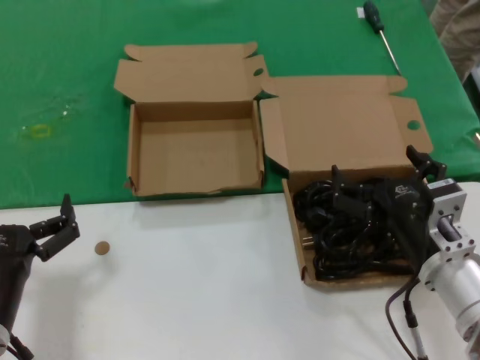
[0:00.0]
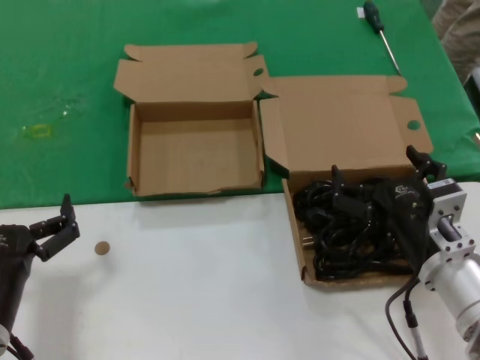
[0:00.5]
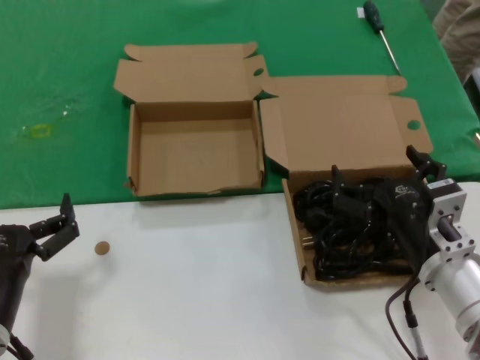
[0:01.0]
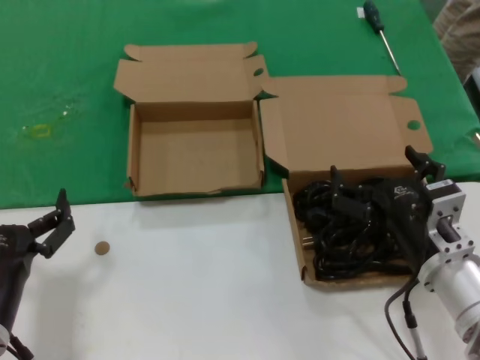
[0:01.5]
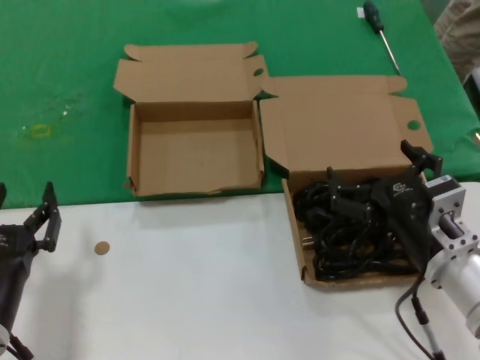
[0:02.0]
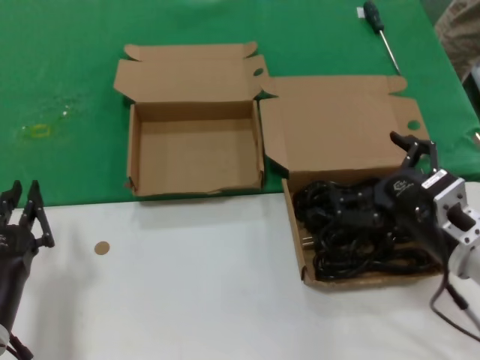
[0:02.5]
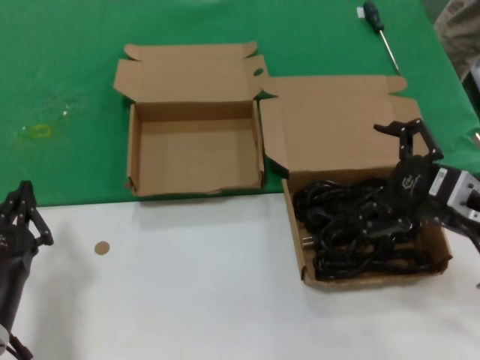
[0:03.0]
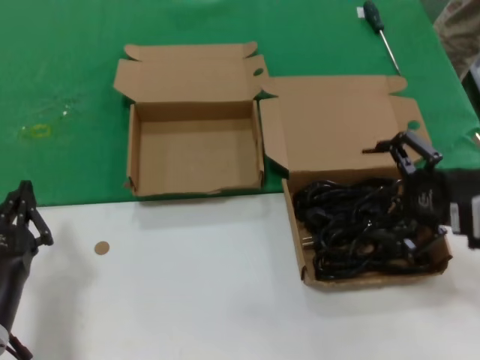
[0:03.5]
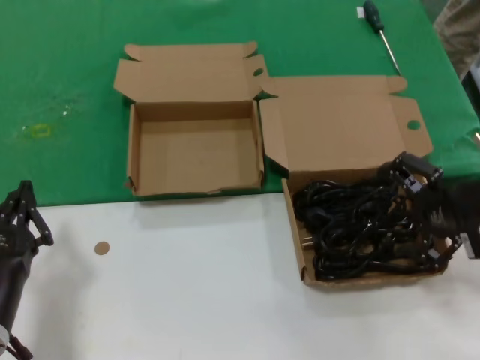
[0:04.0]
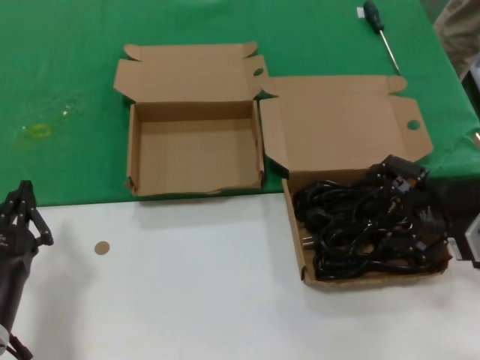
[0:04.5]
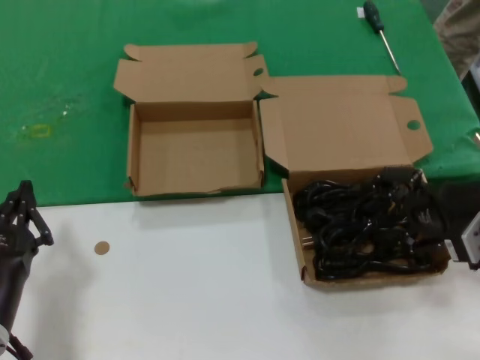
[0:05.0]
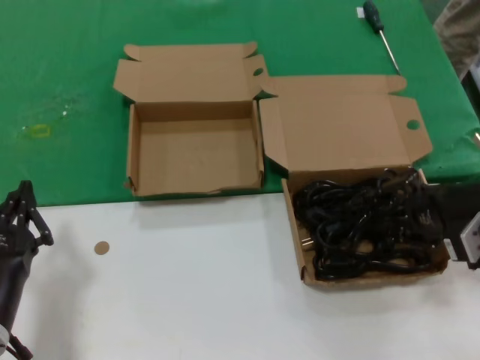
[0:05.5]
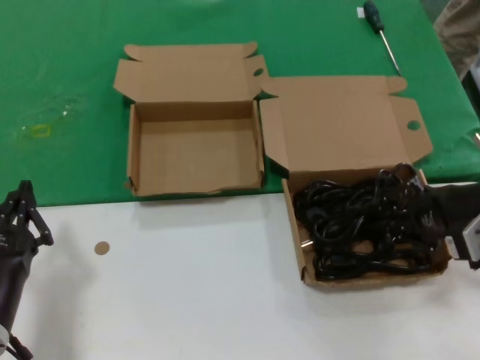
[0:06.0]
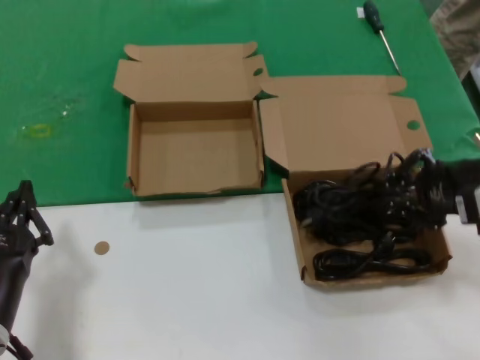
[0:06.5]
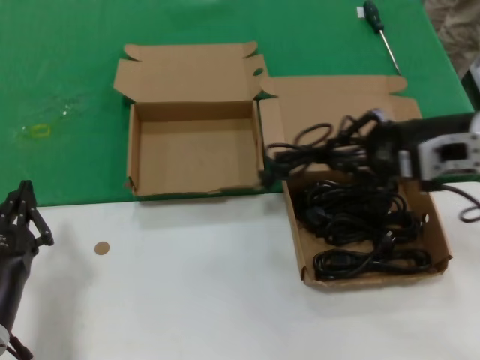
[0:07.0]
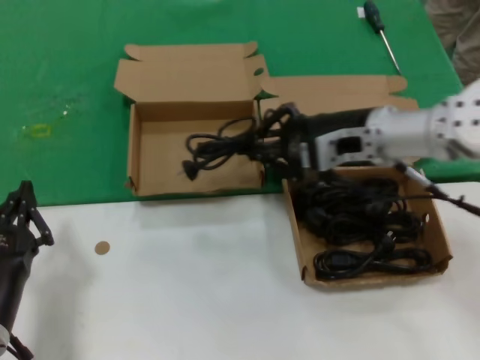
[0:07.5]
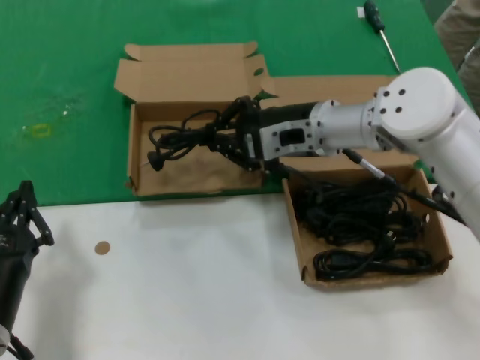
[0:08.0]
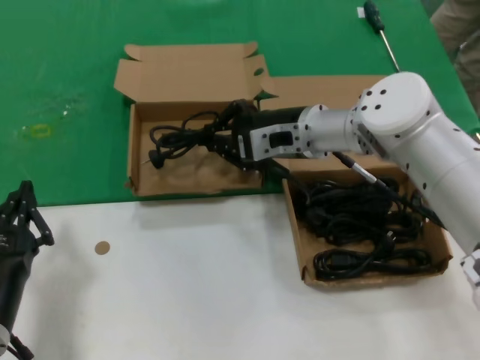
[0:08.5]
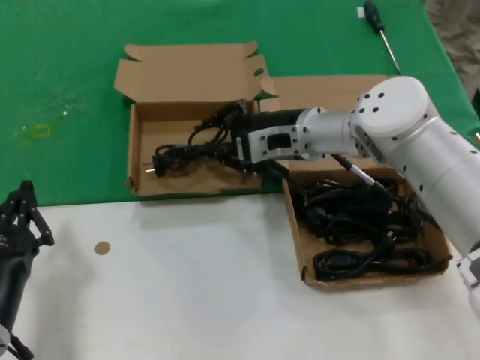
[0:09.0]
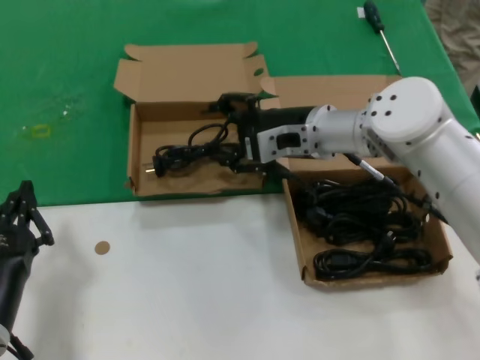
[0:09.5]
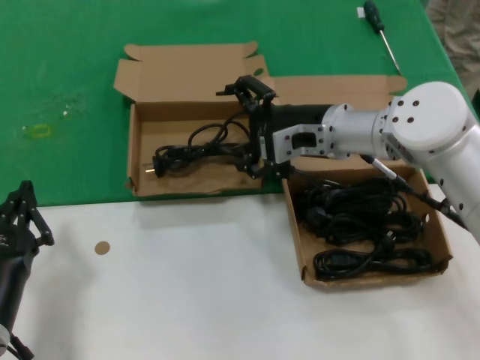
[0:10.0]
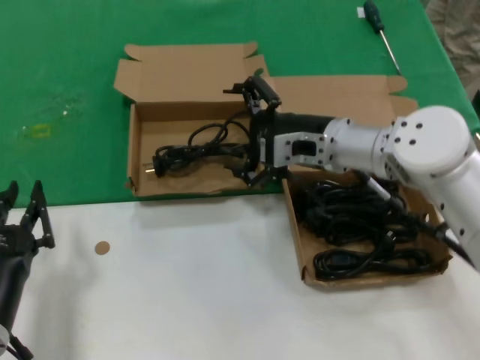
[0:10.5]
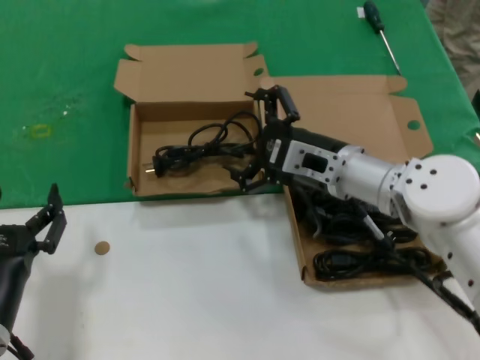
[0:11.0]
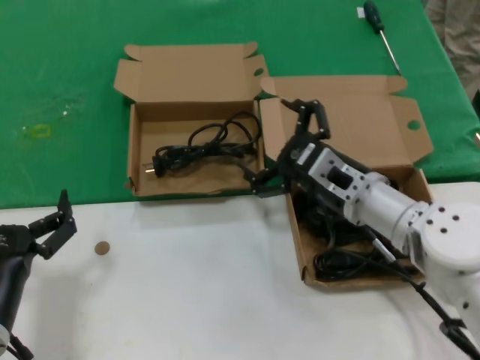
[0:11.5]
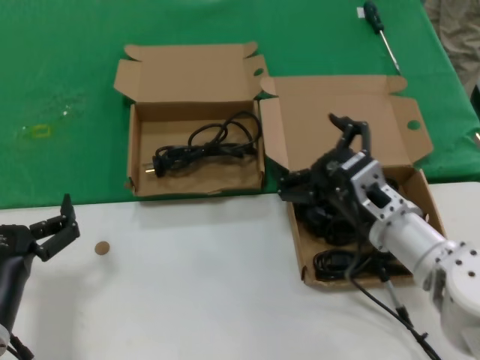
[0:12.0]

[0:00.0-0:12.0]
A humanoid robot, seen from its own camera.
Task of the whole recording: take the parts from the box containing them and put them into an empty box.
Step, 0:00.0 to 0:05.5: Grasp the data cable.
Step, 0:06.0 to 0:09.5: Place the data cable in the another box.
0:00.0 to 0:02.0: Both hands stay put.
0:02.0 to 0:04.0: The right hand moves to the right and upward, roughly 15 cm.
0:04.0 to 0:06.0: The hands make only small movements.
0:06.0 to 0:08.0: The right hand is displaced to the left and forward by roughly 25 cm.
0:08.0 to 0:10.0: The hands make only small movements.
0:10.0 to 0:12.0: The right hand heads backward and downward, covering some 15 cm.

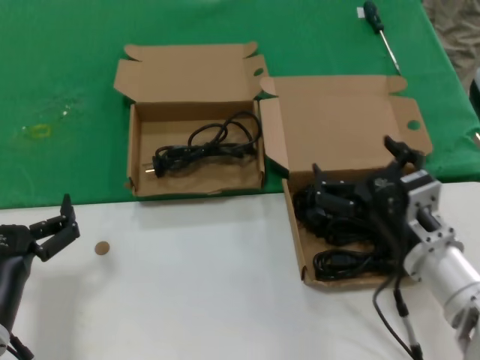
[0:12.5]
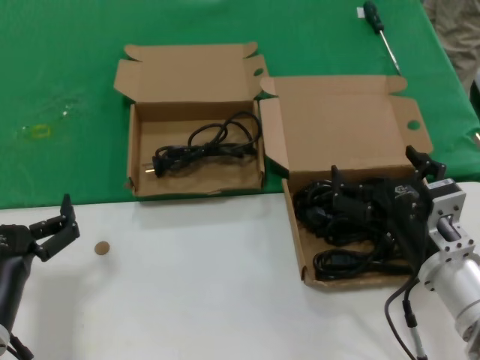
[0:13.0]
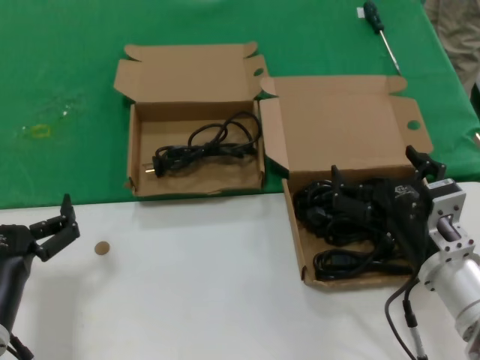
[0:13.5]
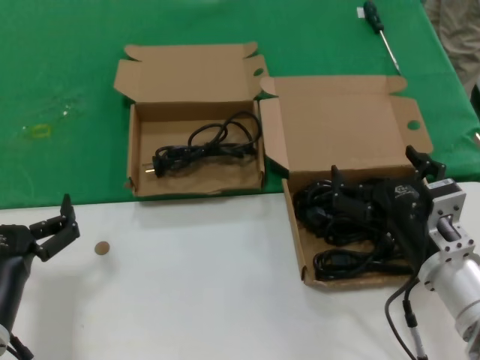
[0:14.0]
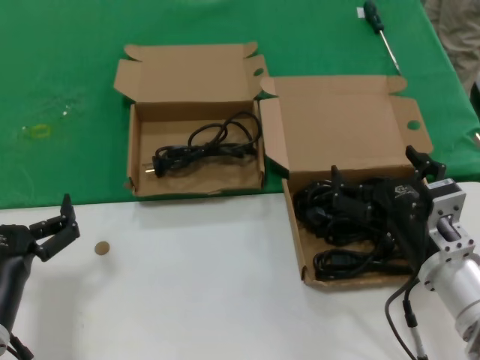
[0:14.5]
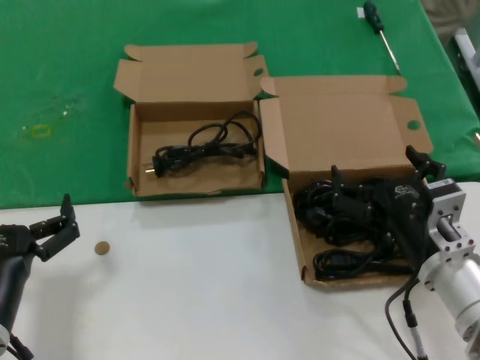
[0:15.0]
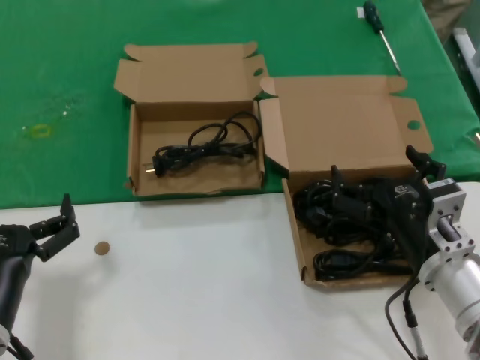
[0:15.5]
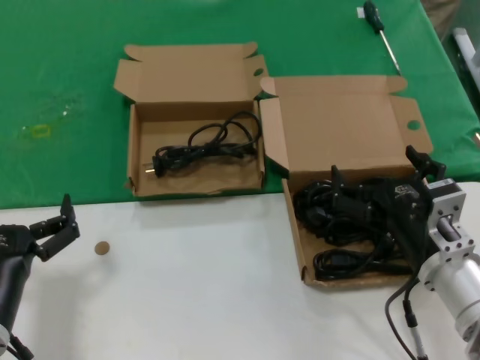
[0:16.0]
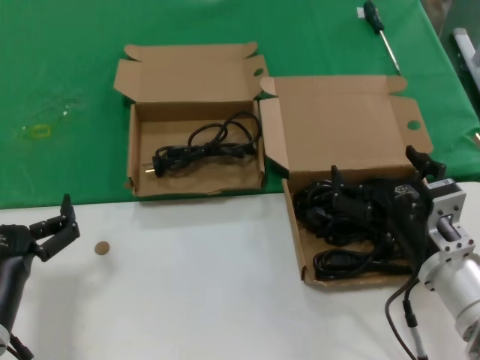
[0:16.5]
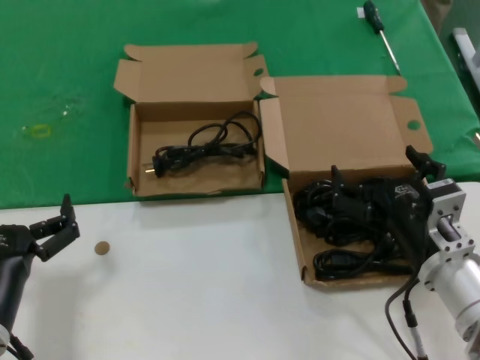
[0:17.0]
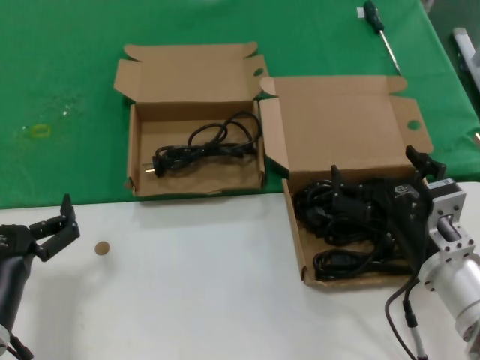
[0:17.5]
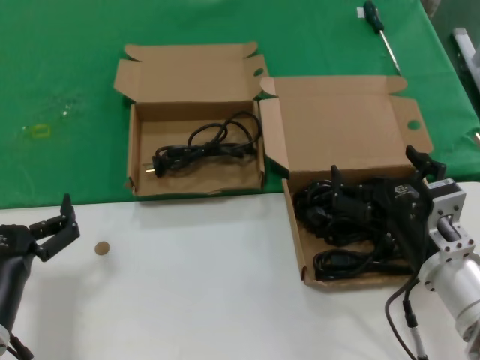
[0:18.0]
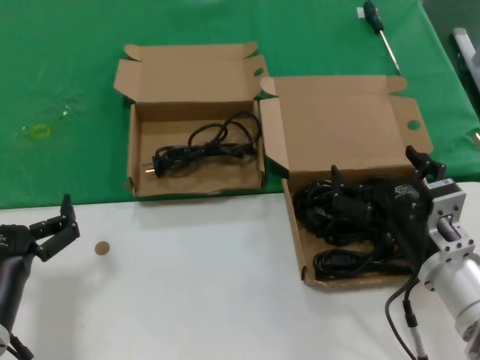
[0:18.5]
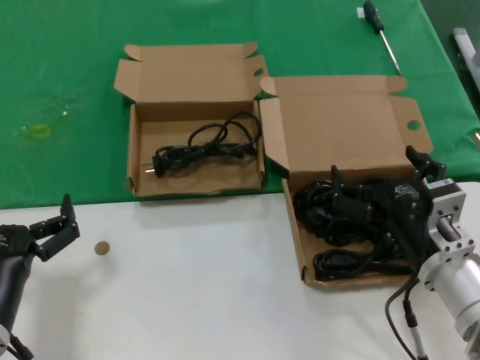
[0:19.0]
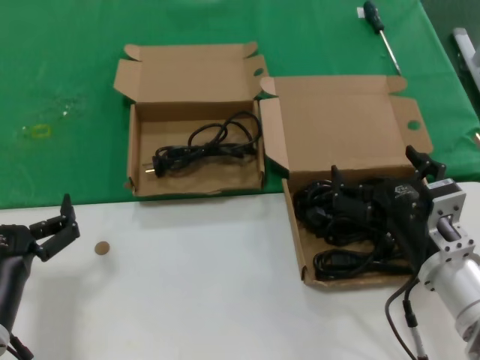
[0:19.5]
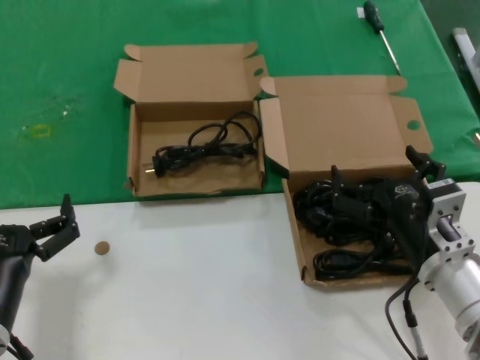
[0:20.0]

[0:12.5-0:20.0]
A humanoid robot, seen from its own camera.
Task of the whole recording: take the parts from the box containing them and put them into an empty box.
0:12.5 to 0:14.5: The hands stay close to where they were, moving slightly.
0:14.5 to 0:20.0: The two hands keep their place.

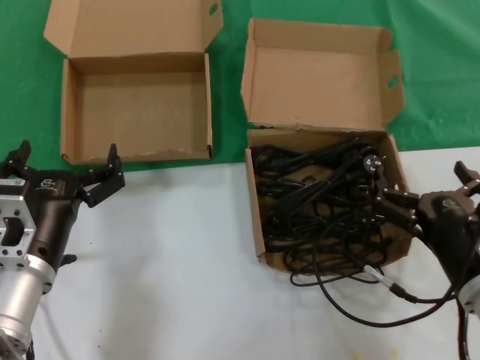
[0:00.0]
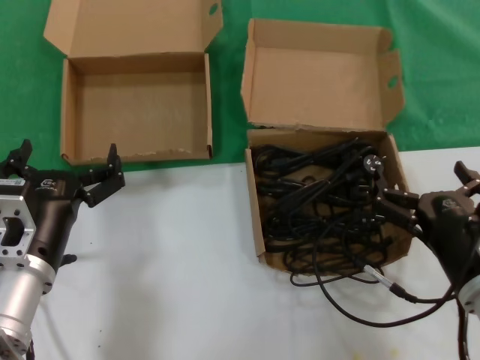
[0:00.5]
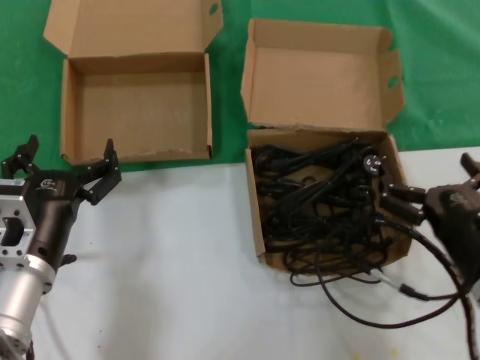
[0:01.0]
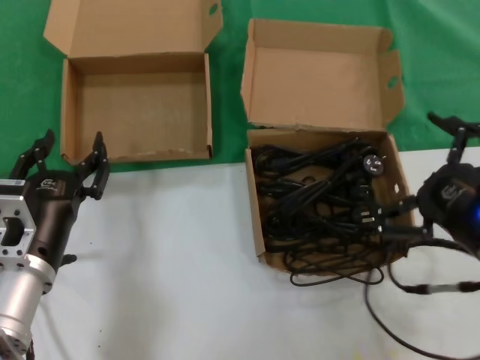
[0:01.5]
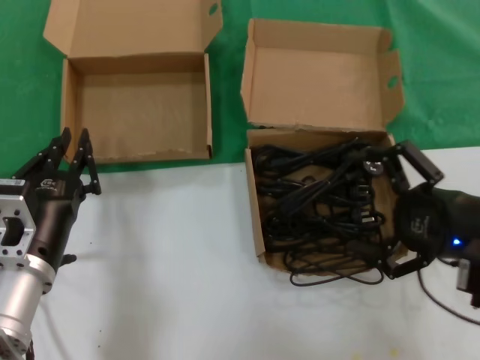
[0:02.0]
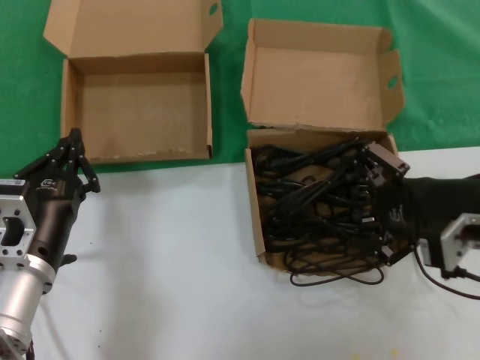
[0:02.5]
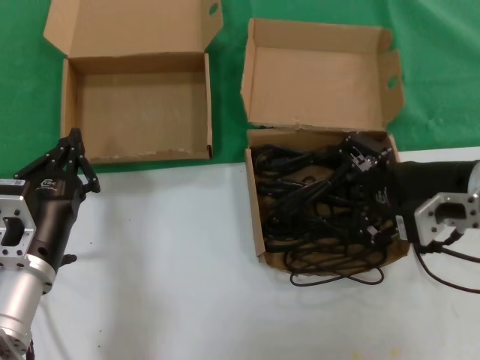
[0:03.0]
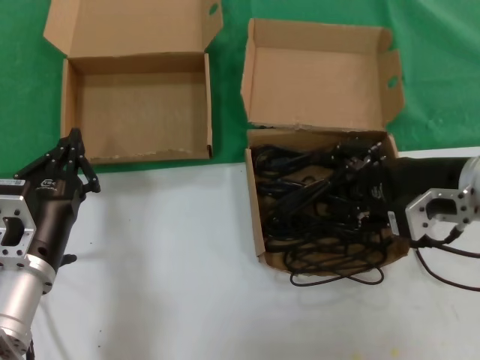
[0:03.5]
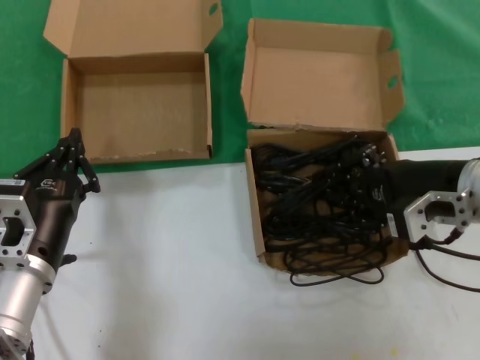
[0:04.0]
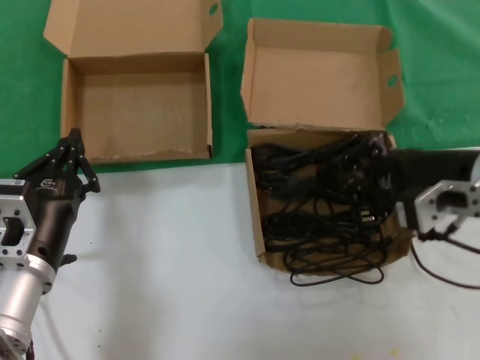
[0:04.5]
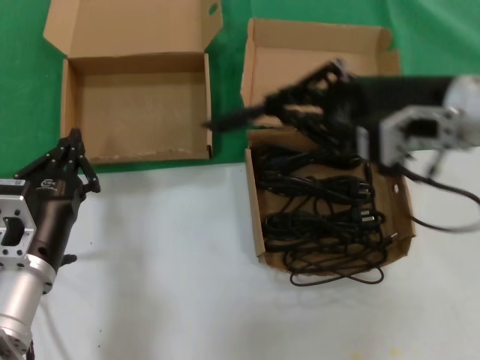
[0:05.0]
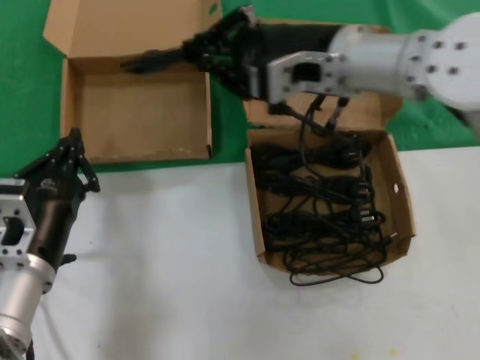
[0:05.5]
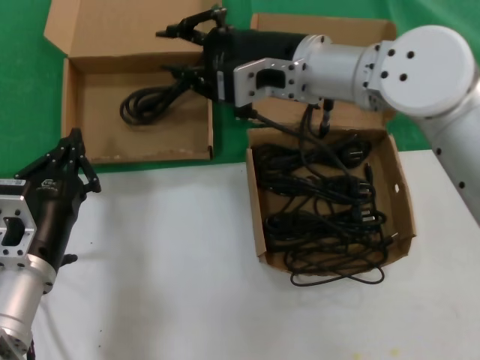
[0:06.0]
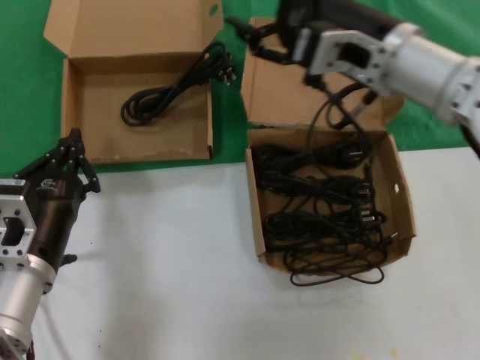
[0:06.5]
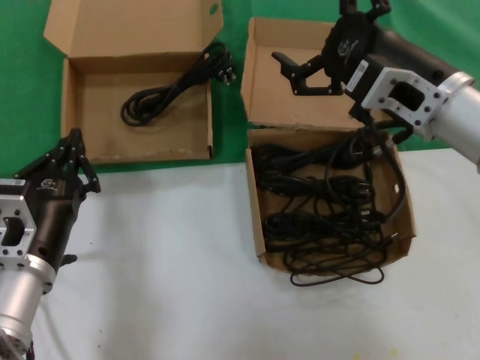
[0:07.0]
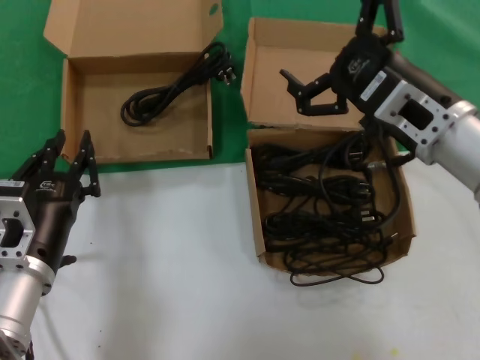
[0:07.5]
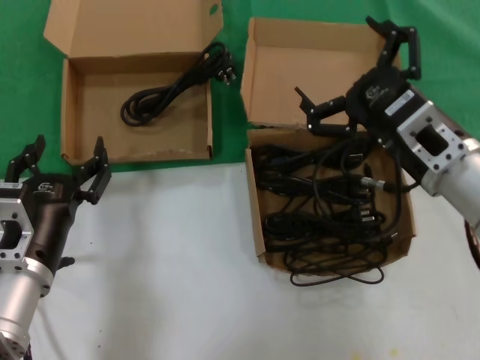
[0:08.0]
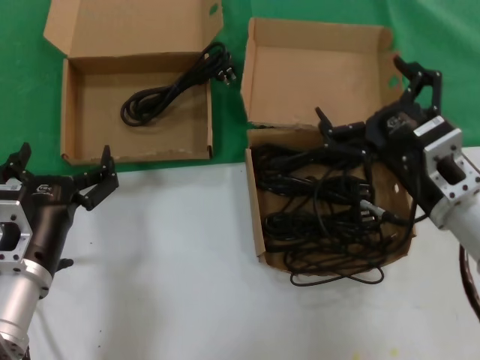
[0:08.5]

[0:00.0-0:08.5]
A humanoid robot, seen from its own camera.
Task of the whole recording: take the parts from the box containing them and put them into an empty box.
Step, 0:00.0 to 0:04.0: Grasp the data cable.
Step, 0:04.5 to 0:06.0: Place the data cable in the another box.
0:00.0 to 0:02.0: The right hand moves upward and to the right, approximately 15 cm.
0:02.0 to 0:04.0: The right hand moves forward, about 10 cm.
0:04.0 to 0:06.5: The right hand goes roughly 15 cm to the left and upward.
0:06.5 to 0:08.5: The right hand travels downward, backward and to the right by some 20 cm.
